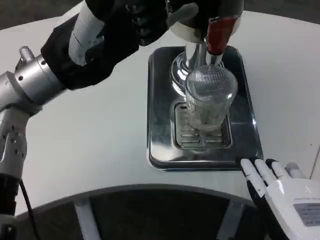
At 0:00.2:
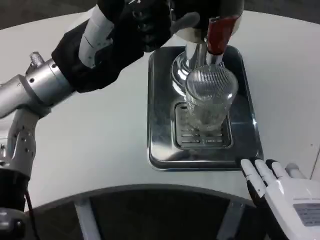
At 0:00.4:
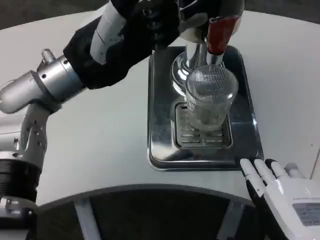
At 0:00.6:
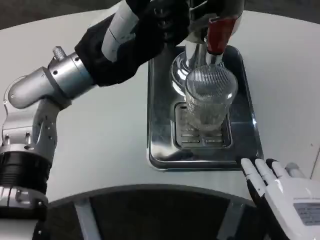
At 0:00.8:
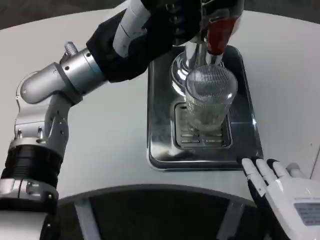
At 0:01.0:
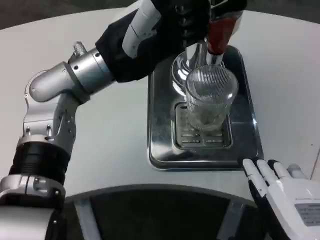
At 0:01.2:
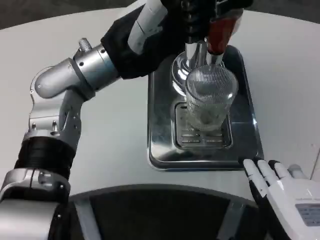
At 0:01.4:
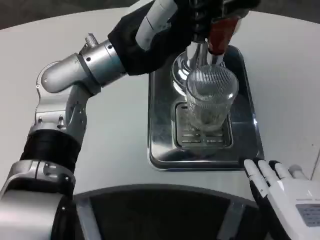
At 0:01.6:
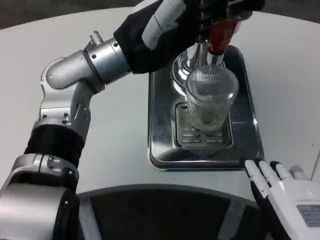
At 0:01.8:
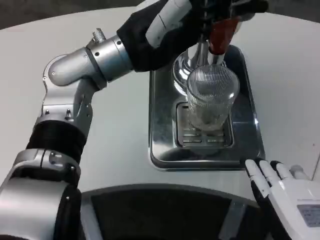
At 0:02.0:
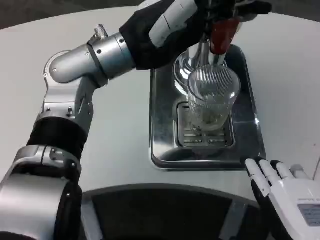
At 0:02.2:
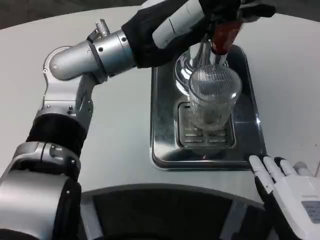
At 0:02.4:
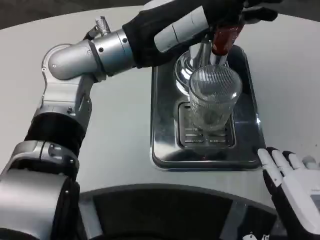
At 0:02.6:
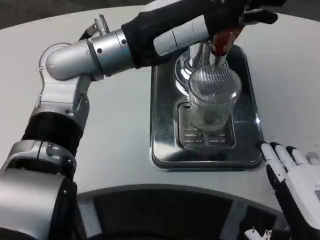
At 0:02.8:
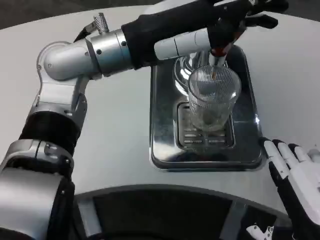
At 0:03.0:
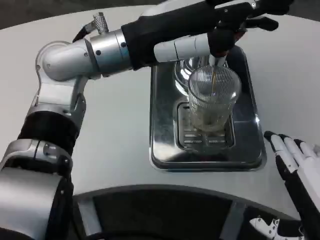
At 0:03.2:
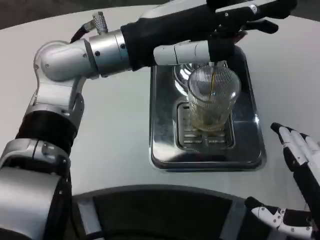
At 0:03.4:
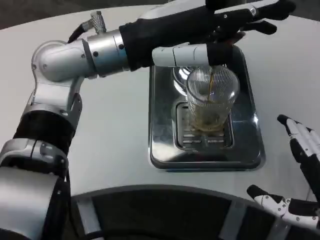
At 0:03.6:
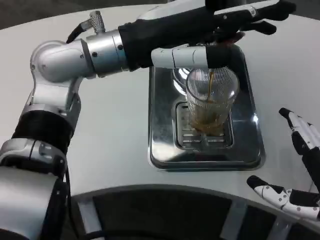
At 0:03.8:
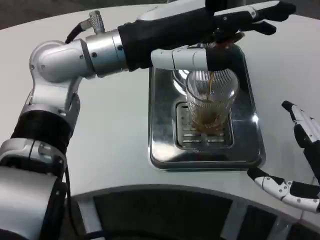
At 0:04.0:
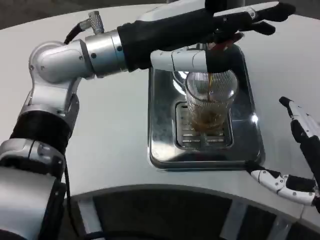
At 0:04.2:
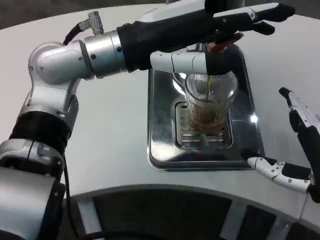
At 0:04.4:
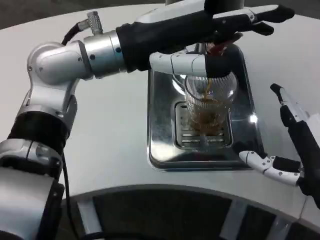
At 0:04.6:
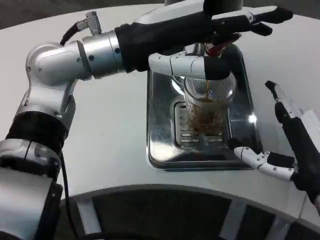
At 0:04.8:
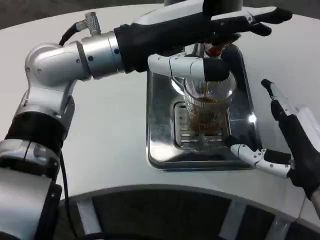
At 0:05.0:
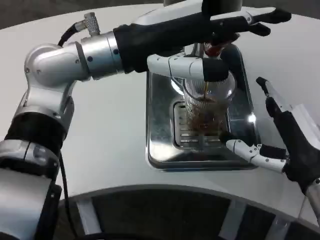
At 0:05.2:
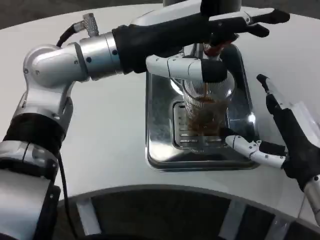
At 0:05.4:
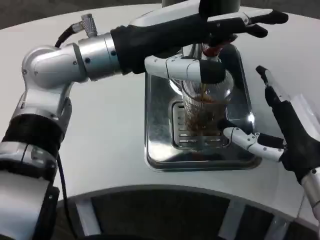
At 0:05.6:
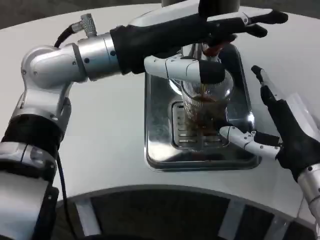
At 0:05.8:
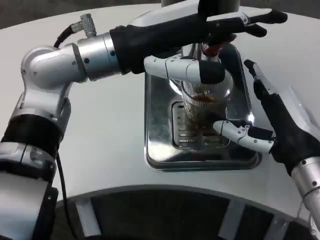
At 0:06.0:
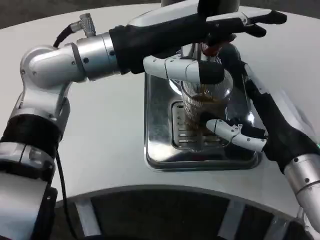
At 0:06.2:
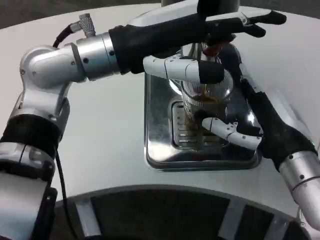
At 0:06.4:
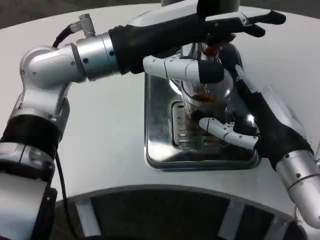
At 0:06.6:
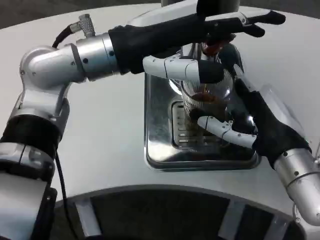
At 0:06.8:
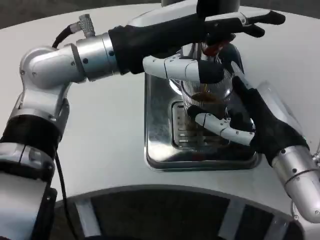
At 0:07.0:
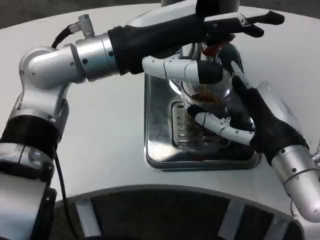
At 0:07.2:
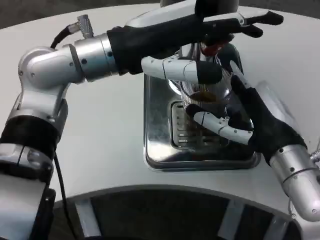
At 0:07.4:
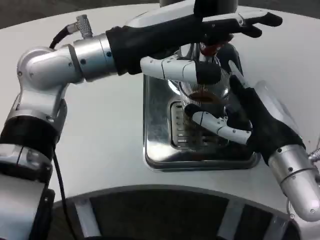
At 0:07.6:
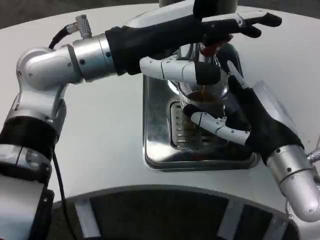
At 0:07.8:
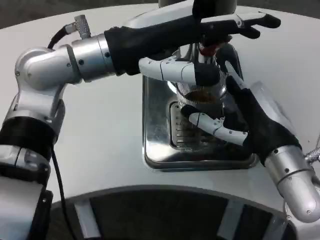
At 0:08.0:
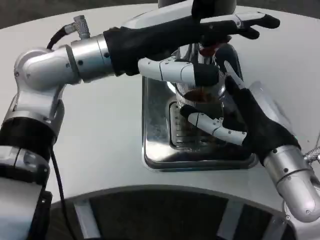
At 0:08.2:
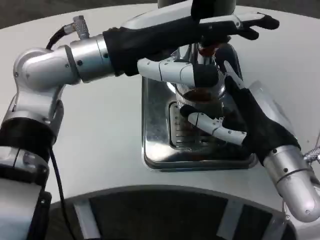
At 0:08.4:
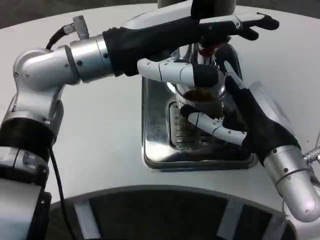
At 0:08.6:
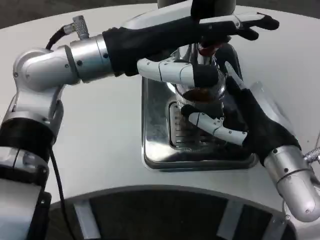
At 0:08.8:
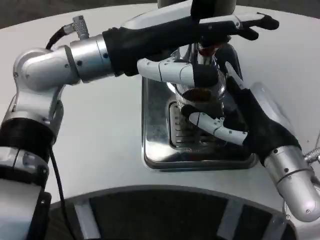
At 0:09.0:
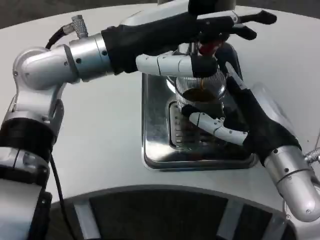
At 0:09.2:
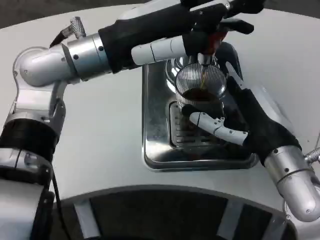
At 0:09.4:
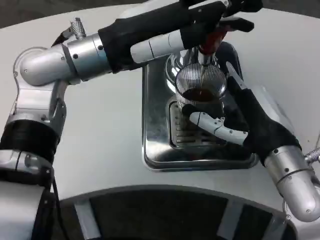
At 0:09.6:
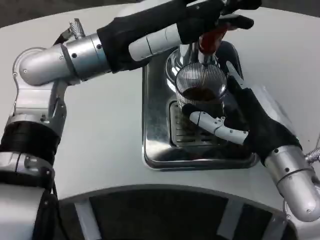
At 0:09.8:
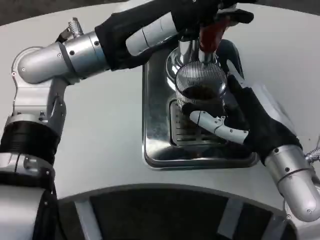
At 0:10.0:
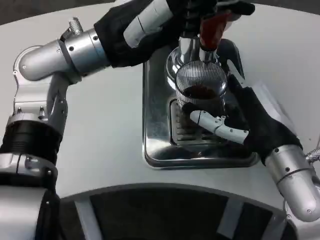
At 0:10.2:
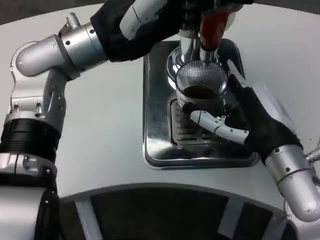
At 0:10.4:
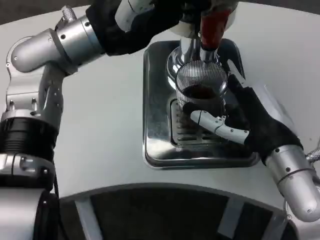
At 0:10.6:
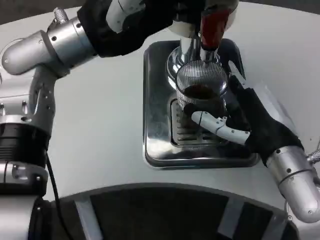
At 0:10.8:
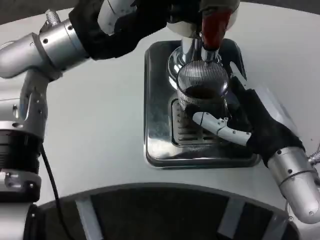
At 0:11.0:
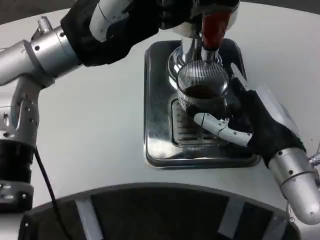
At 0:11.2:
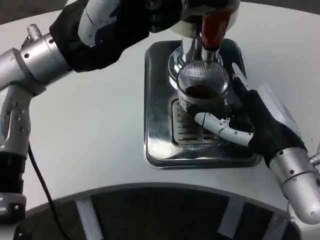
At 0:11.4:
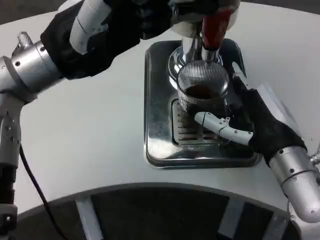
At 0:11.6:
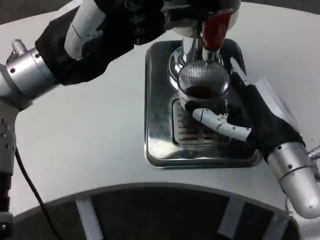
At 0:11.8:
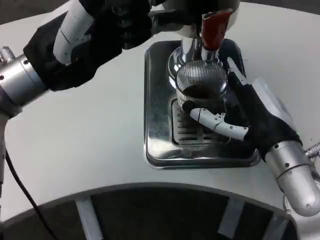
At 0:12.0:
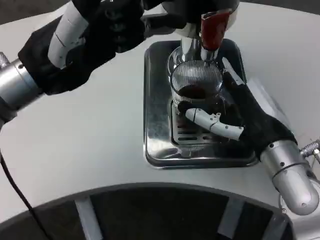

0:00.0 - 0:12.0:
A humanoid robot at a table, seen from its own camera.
Task of the whole recording: Grasp the cup under the faucet to collect the drink, then remove the cup.
0:00.0 - 0:01.6: The left hand travels to the right by about 5 cm.
0:03.0 - 0:04.4: The right hand goes approximately 10 cm forward.
0:04.4 - 0:06.0: The right hand shifts by roughly 5 cm.
0:07.6 - 0:09.0: Neither hand changes place.
0:10.4 - 0:12.0: The left hand shifts about 5 cm to the left.

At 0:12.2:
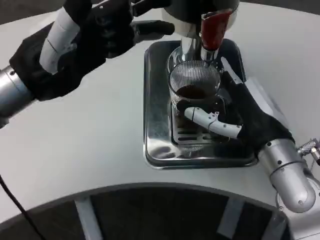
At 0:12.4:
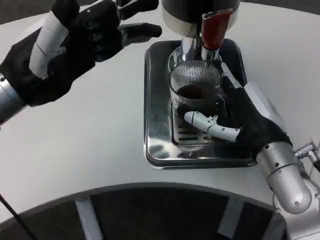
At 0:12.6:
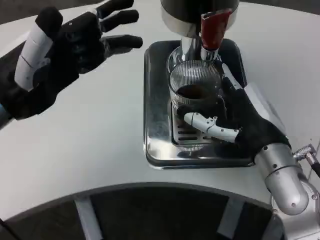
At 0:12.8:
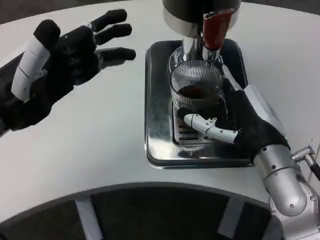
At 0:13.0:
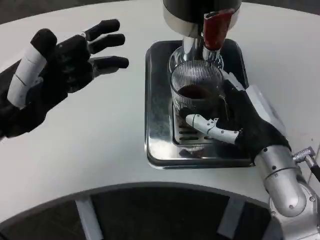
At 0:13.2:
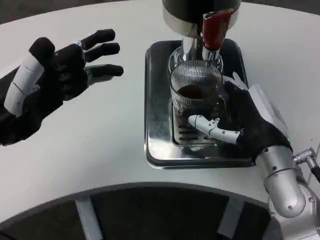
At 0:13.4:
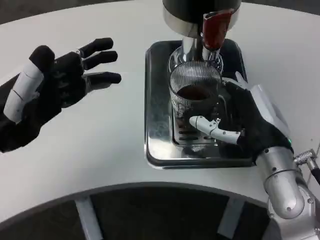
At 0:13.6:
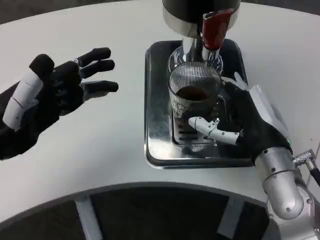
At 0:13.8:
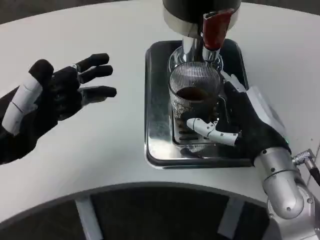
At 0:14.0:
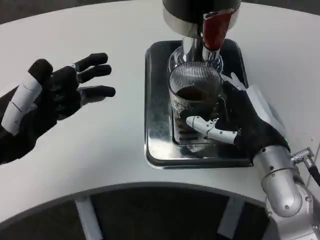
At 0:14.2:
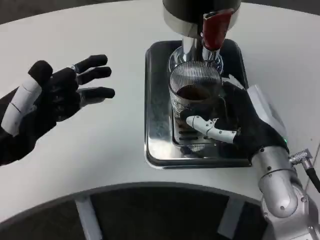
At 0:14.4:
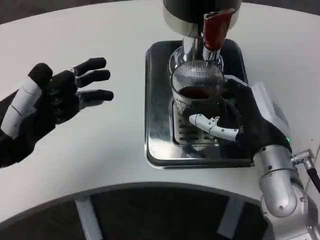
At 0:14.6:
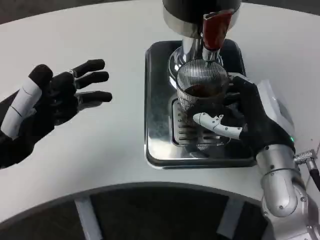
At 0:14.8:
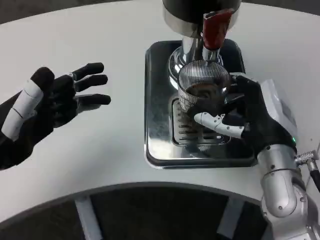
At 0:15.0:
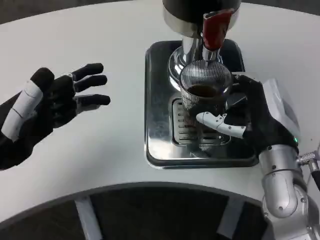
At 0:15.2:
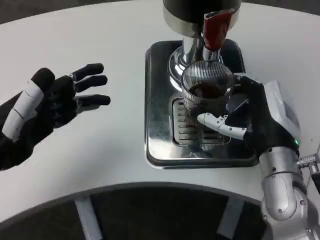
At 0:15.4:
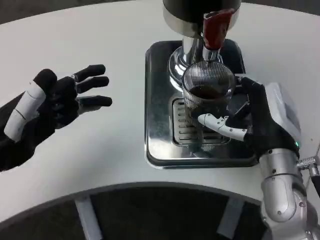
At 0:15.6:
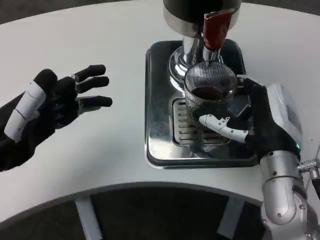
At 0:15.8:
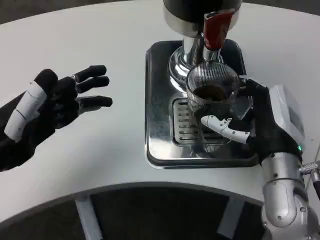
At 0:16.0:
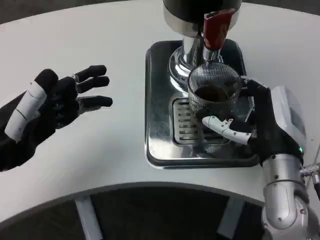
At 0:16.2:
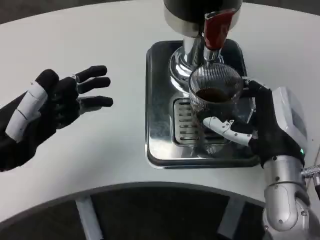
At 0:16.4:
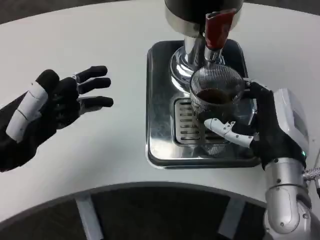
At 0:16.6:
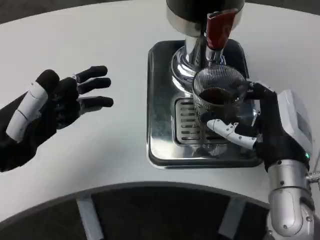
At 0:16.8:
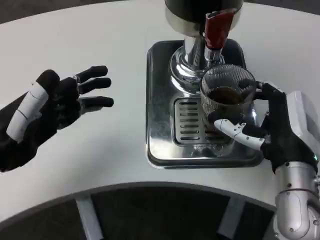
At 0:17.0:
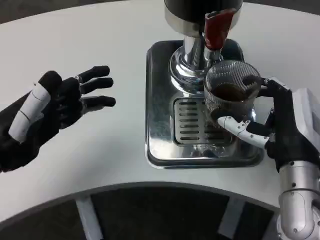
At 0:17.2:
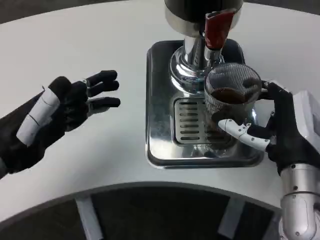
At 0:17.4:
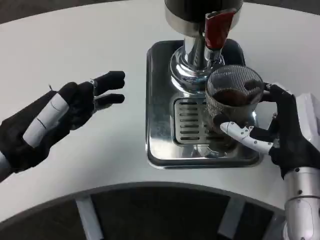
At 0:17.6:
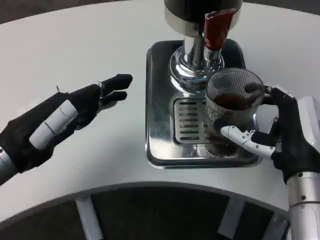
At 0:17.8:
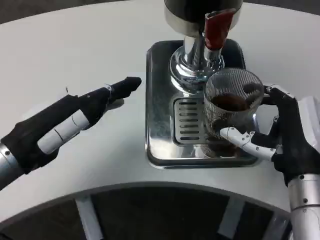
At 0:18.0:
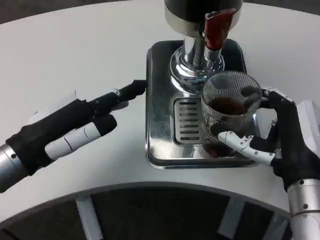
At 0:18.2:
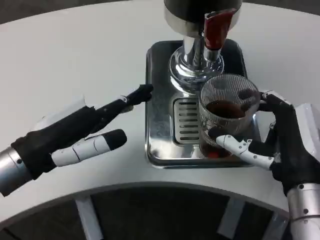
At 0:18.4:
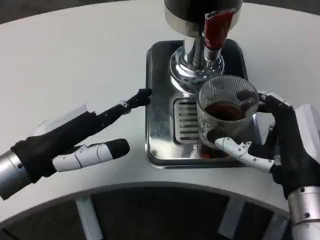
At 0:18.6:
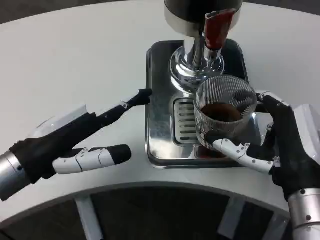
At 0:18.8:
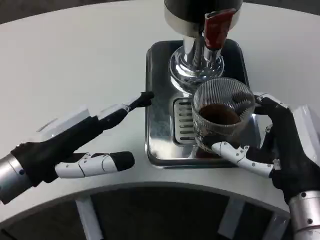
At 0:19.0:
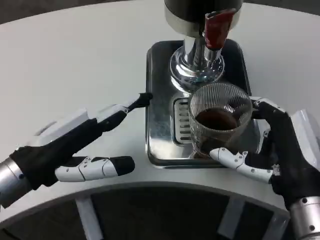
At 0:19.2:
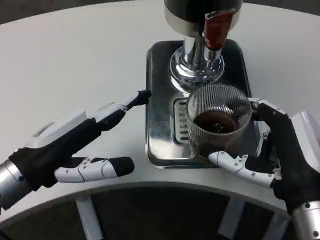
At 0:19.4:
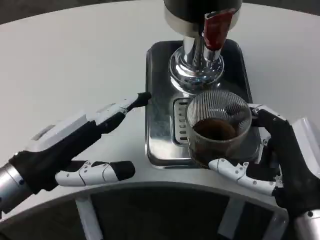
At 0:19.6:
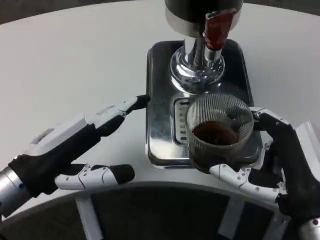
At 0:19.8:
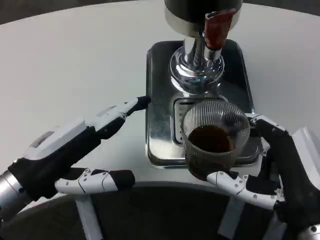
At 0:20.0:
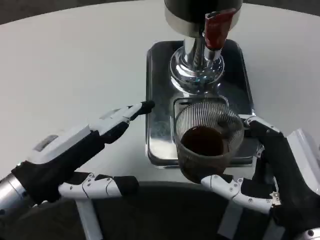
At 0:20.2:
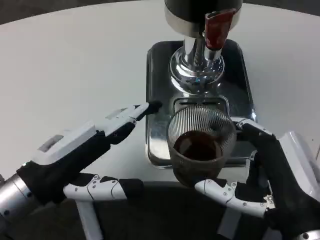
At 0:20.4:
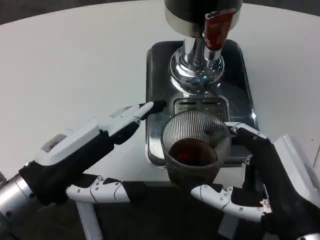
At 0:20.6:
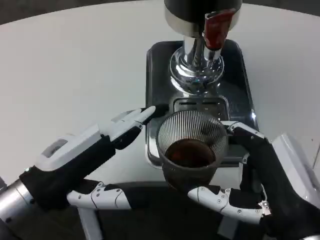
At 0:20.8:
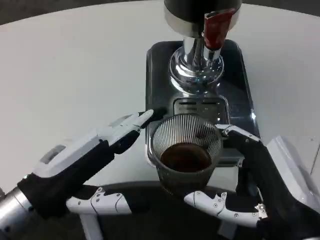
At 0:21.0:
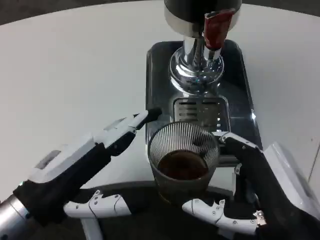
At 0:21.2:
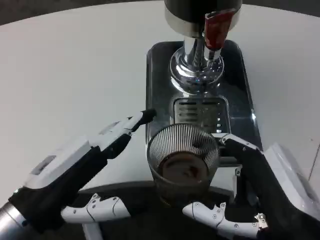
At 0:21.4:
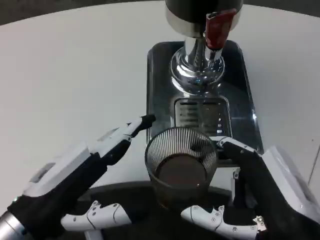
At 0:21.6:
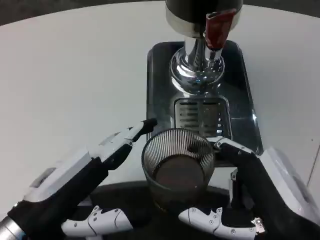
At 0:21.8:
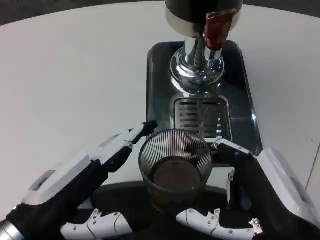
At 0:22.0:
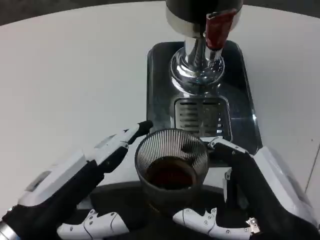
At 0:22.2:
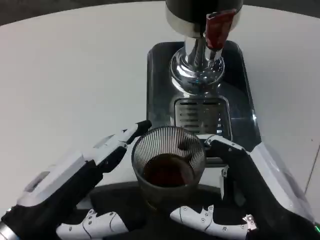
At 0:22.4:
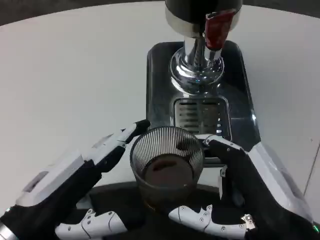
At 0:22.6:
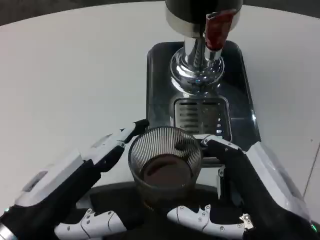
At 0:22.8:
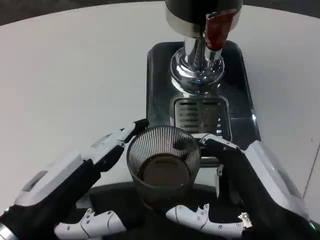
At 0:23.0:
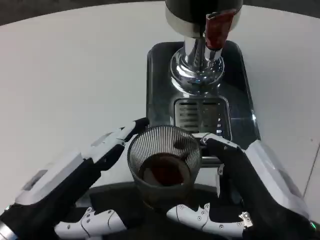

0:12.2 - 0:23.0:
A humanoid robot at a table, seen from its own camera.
Task of the whole recording: Grasp the cup under the faucet to collect the drink, then remove the cup.
0:12.2 - 0:13.8: The left hand shifts roughly 5 cm downward.
0:13.8 - 0:15.2: There are only small adjustments of the hands.
0:18.4 - 0:20.0: The right hand shifts some 5 cm backward.
0:20.0 - 0:21.4: The left hand heads backward, covering some 5 cm.
0:21.4 - 0:23.0: Both hands stay about where they are.
